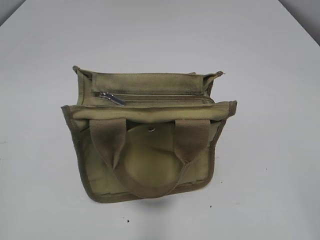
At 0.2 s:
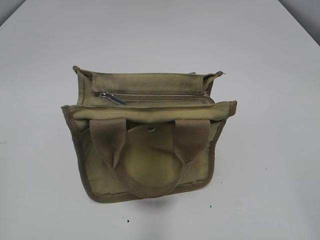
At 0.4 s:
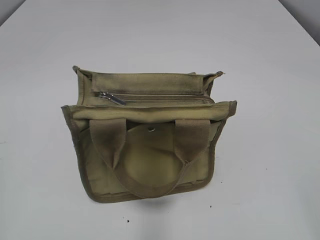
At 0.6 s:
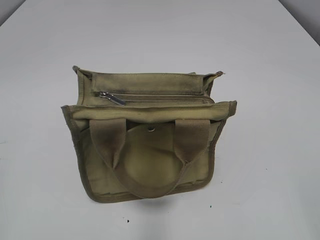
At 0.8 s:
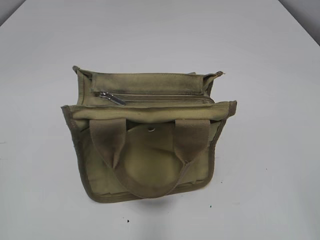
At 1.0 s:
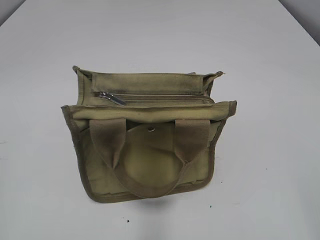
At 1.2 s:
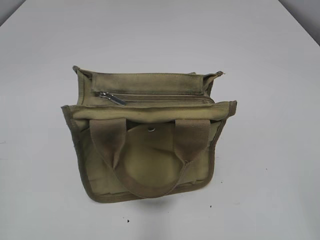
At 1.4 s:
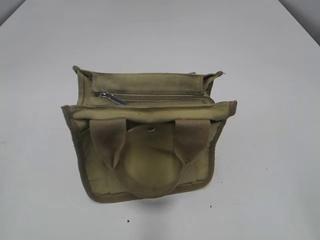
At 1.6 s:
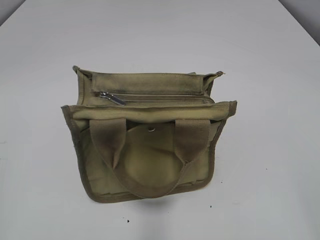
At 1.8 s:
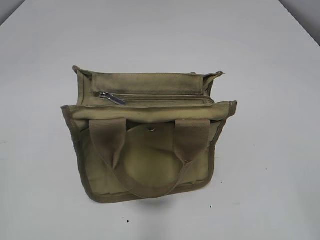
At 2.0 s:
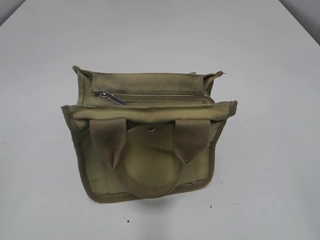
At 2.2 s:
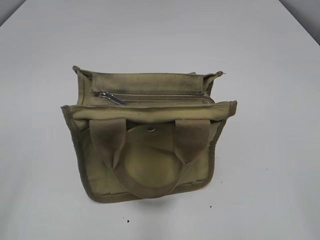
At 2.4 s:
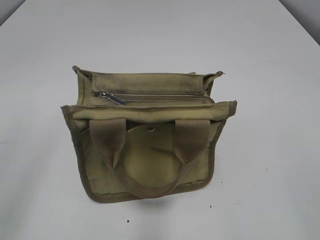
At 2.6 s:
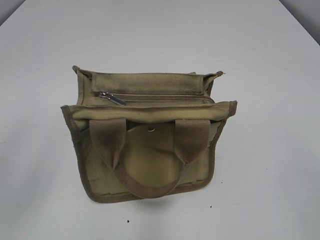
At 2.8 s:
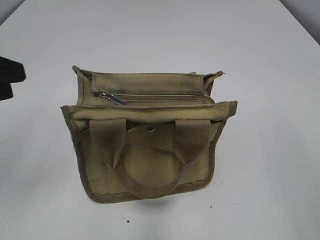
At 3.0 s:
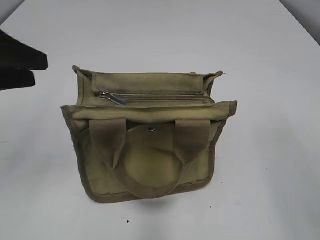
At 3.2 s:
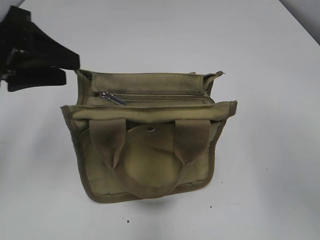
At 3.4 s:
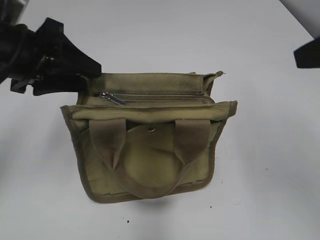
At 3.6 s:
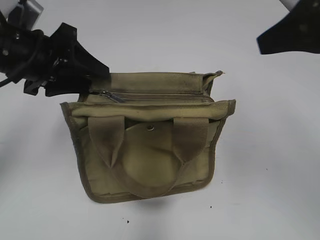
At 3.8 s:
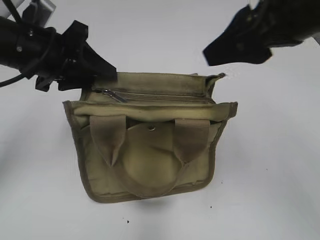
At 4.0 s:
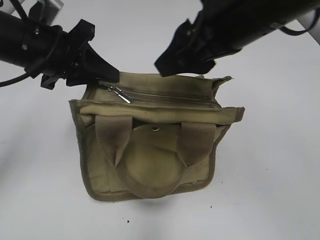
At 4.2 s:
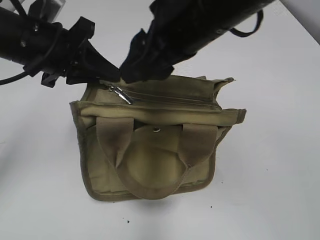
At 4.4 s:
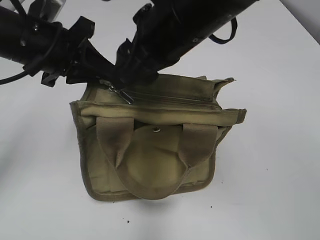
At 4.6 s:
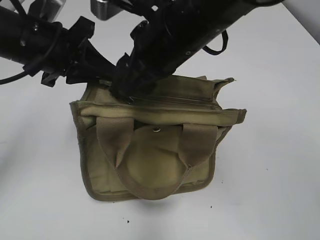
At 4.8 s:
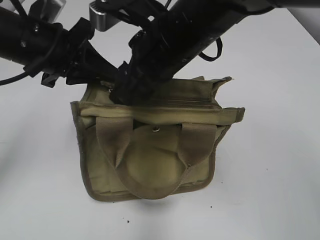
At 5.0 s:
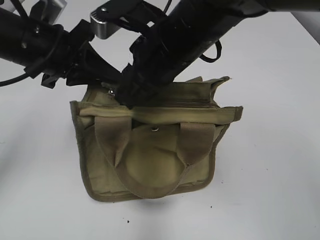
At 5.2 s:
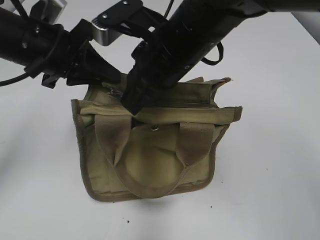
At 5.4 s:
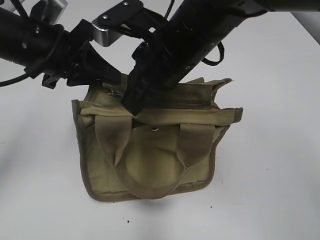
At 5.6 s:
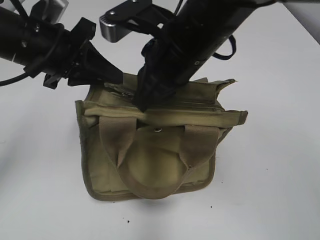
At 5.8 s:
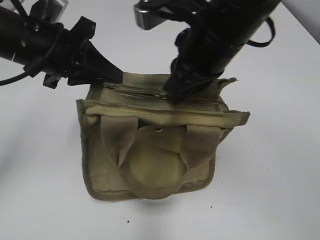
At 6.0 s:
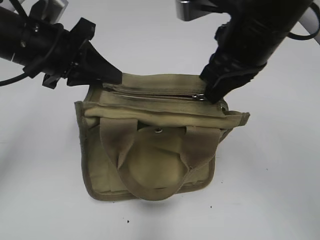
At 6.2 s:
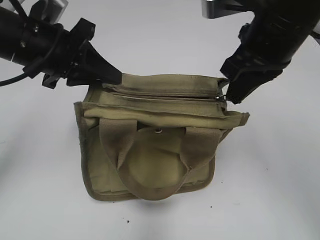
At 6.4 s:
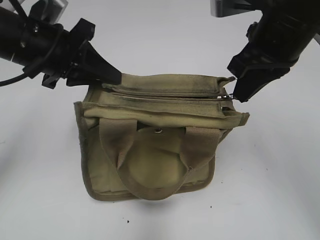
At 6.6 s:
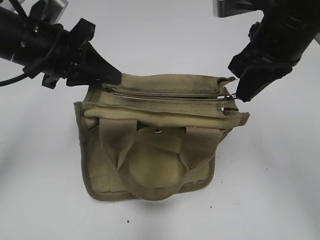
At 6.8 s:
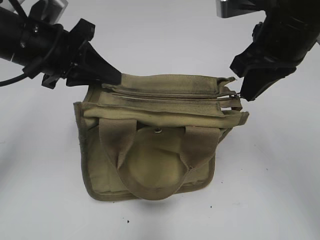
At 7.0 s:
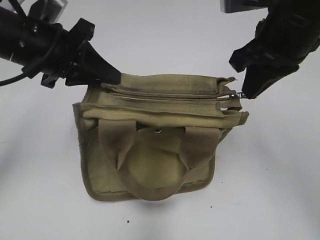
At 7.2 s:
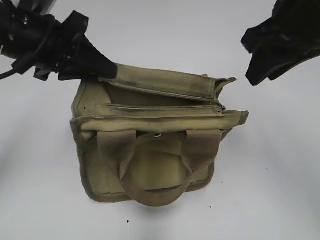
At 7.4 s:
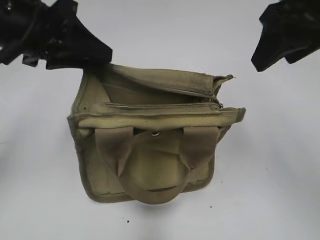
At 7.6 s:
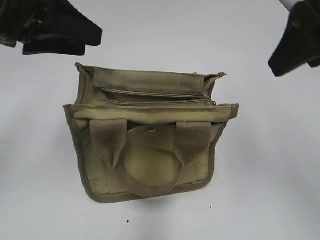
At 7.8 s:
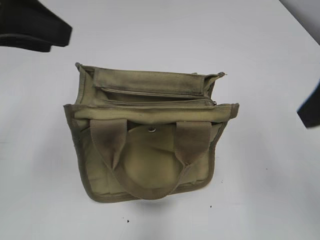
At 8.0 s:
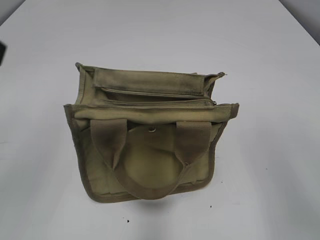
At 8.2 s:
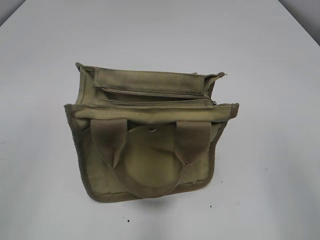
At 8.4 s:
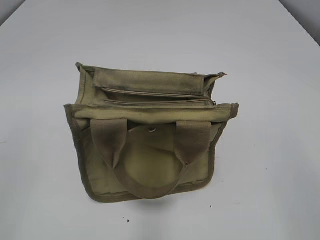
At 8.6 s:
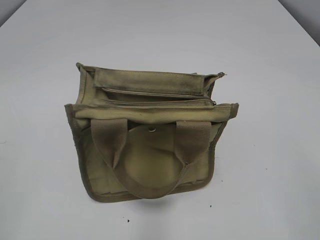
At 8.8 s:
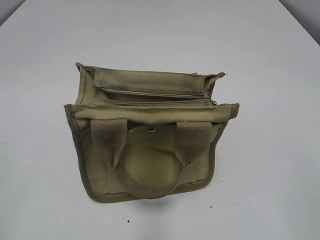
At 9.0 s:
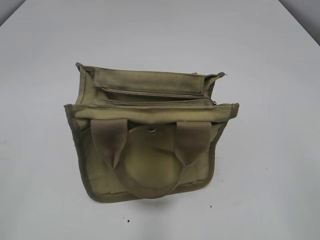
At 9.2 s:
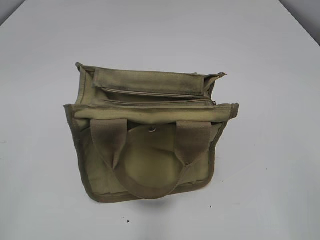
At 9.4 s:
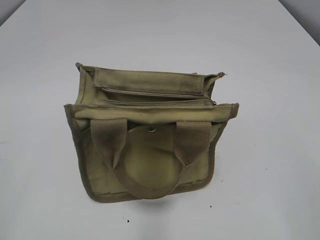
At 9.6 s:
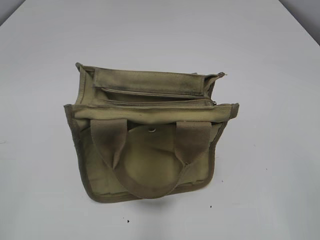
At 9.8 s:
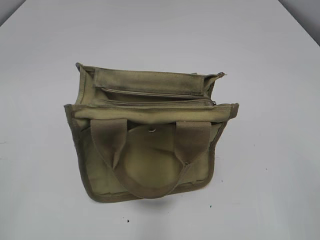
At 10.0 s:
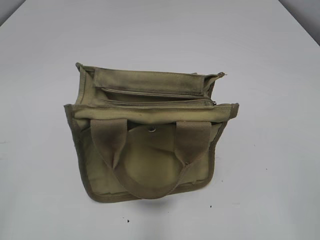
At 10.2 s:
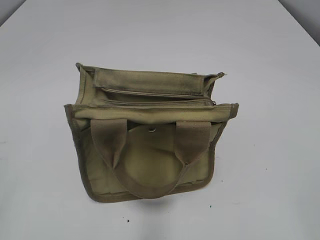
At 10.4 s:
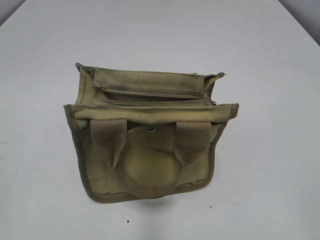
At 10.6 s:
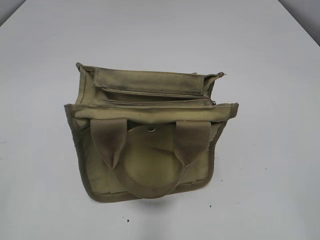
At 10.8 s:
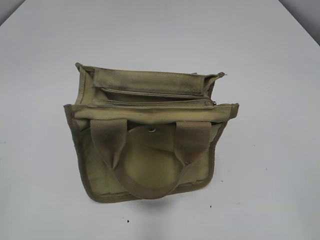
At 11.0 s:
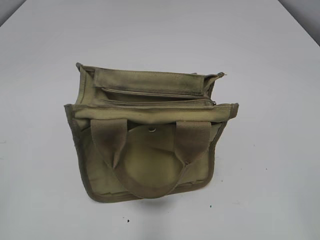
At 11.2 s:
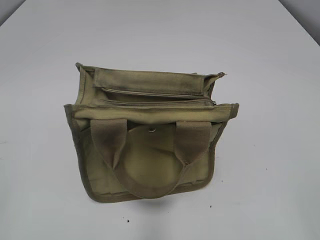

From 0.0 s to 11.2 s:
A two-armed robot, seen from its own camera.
Step, from 0.0 s to 7.0 s: Pull open the zipper with your right hand.
From 1.6 s to 3.2 s: The left gripper goes roughly 25 cm forward, and opens. The right gripper travels forward and upward by roughly 15 cm.
From 3.2 s to 4.8 s: The right gripper moves to the left and forward, some 25 cm. Meanwhile the left gripper goes roughly 10 cm to the right and forward, and closes.
From 4.8 s to 6.4 s: The right gripper goes approximately 15 cm to the right, and closes its fingers.
From 6.4 s to 8.0 s: The right gripper shifts approximately 20 cm backward and to the right, and opens up. The left gripper goes some 20 cm backward, upward and to the left, and opens up.
From 8.0 s to 9.6 s: The left gripper travels backward, downward and to the left by about 20 cm, while the right gripper heads backward, covering some 15 cm.

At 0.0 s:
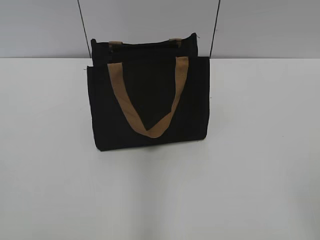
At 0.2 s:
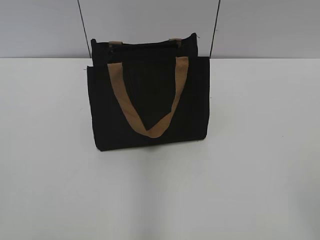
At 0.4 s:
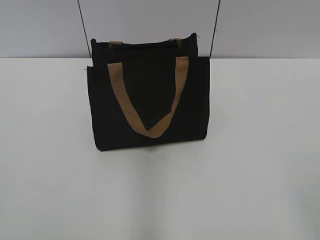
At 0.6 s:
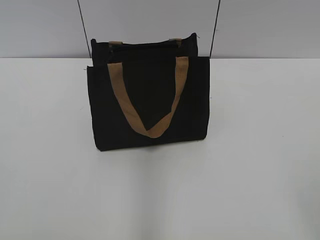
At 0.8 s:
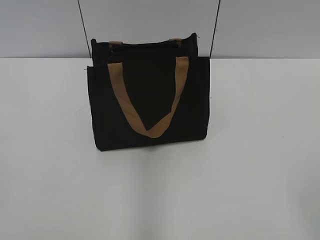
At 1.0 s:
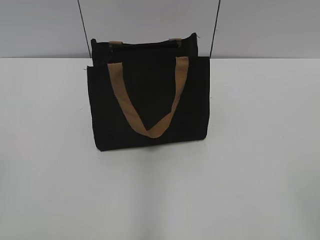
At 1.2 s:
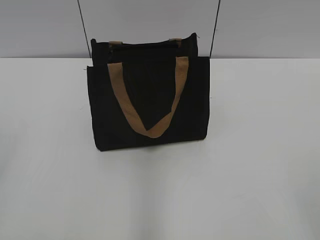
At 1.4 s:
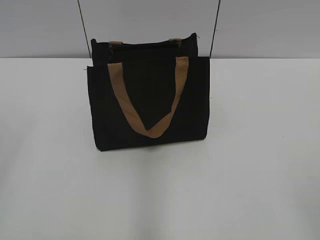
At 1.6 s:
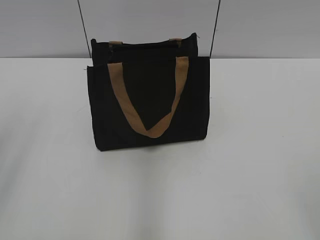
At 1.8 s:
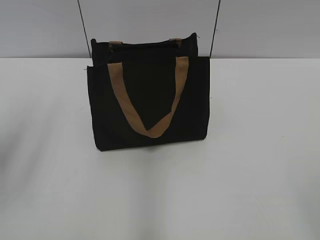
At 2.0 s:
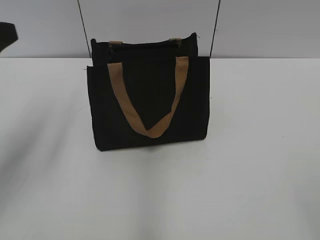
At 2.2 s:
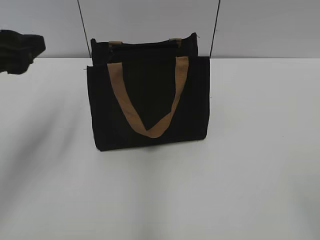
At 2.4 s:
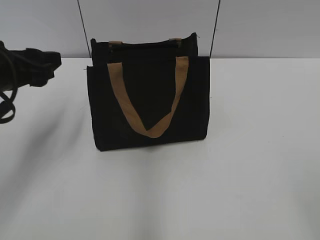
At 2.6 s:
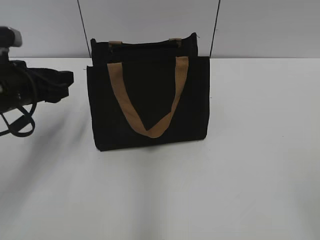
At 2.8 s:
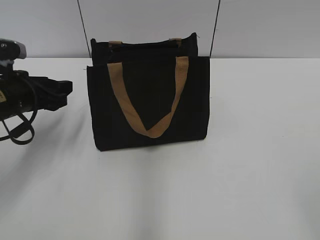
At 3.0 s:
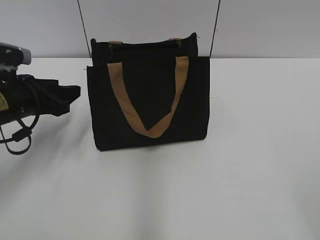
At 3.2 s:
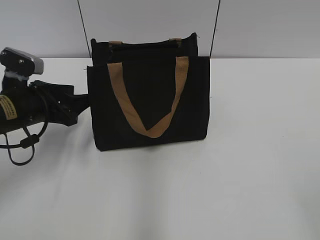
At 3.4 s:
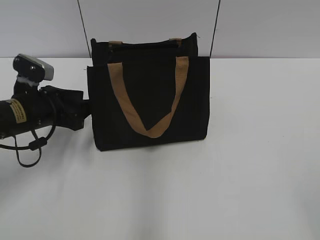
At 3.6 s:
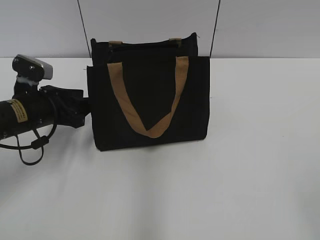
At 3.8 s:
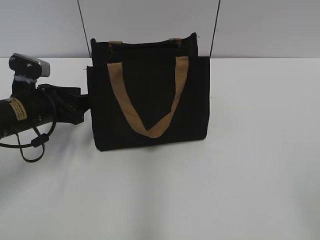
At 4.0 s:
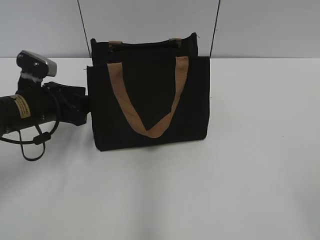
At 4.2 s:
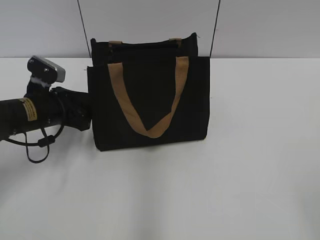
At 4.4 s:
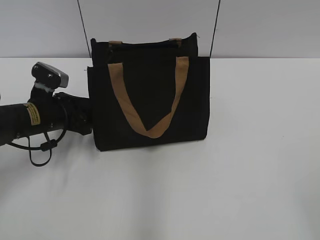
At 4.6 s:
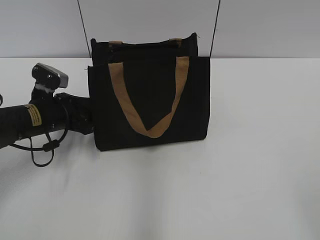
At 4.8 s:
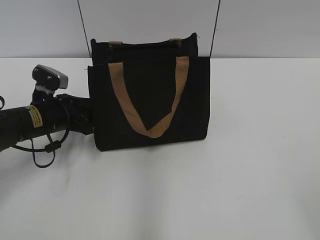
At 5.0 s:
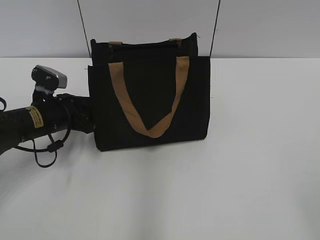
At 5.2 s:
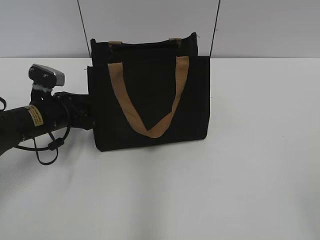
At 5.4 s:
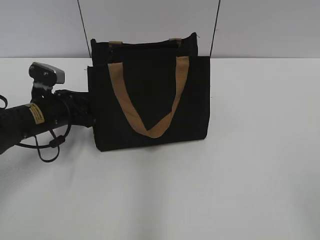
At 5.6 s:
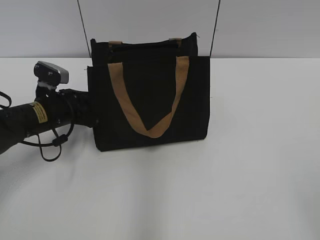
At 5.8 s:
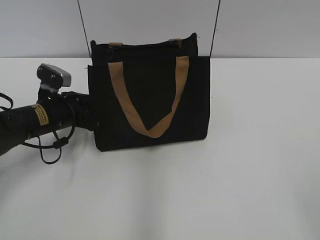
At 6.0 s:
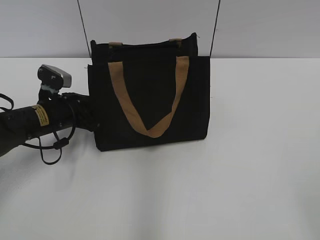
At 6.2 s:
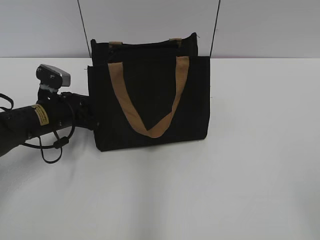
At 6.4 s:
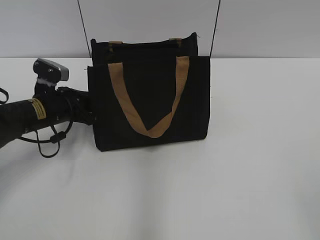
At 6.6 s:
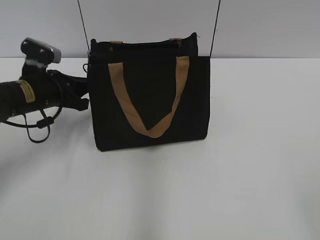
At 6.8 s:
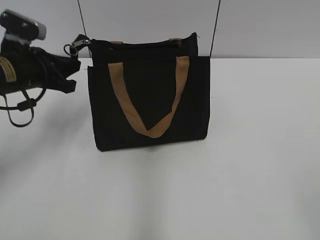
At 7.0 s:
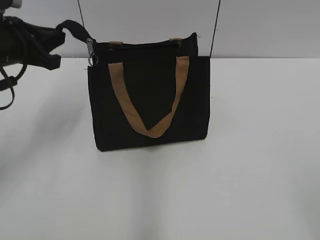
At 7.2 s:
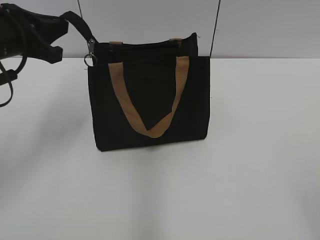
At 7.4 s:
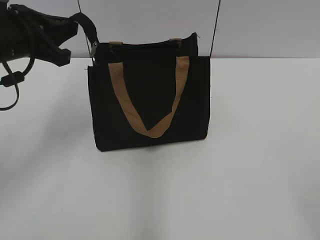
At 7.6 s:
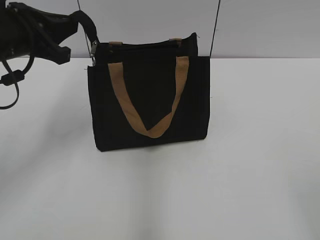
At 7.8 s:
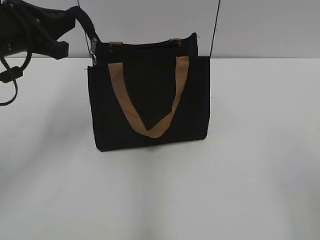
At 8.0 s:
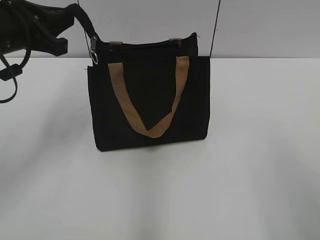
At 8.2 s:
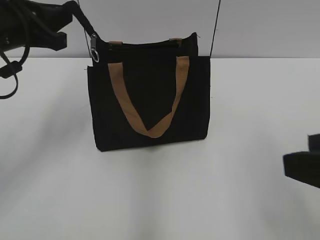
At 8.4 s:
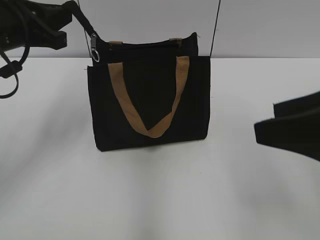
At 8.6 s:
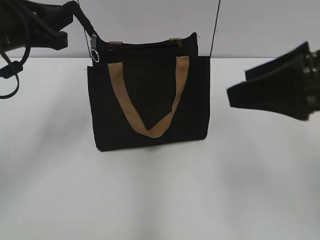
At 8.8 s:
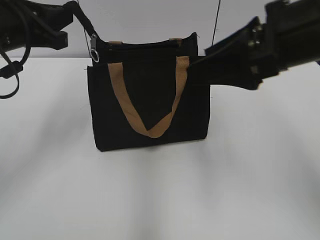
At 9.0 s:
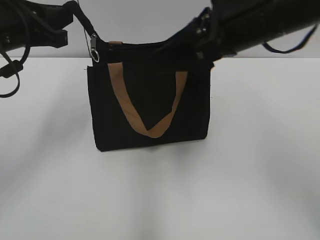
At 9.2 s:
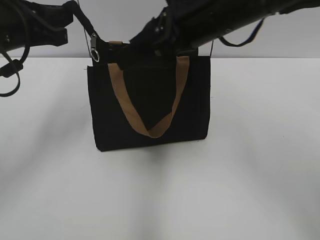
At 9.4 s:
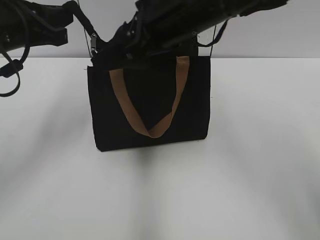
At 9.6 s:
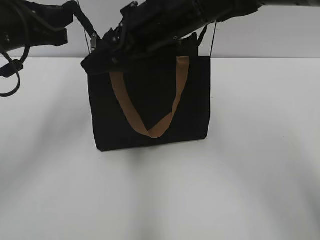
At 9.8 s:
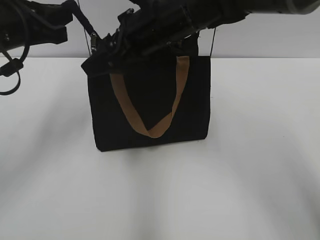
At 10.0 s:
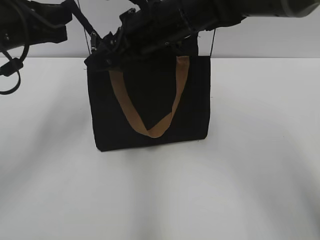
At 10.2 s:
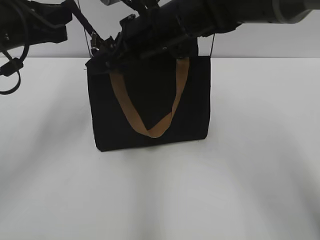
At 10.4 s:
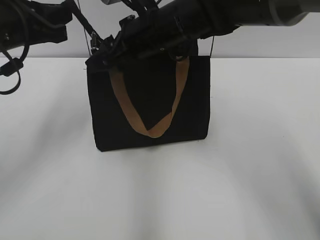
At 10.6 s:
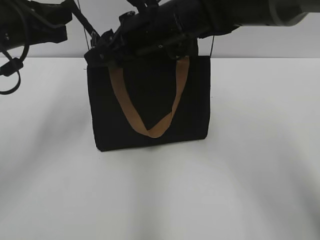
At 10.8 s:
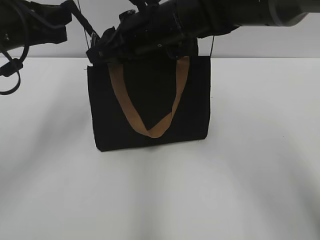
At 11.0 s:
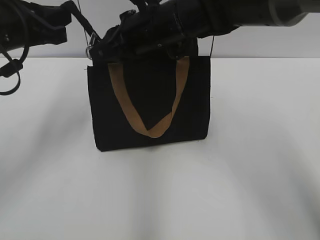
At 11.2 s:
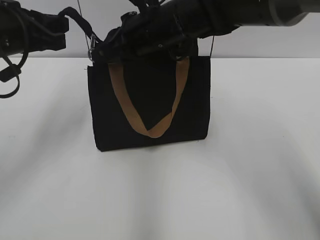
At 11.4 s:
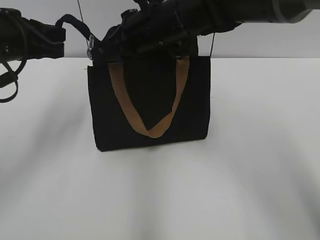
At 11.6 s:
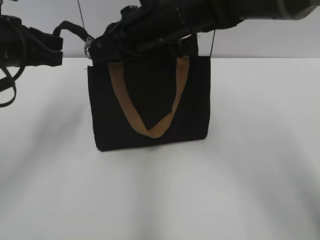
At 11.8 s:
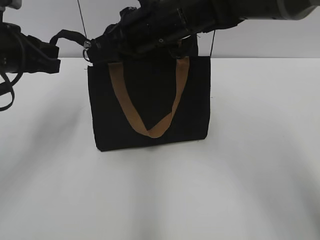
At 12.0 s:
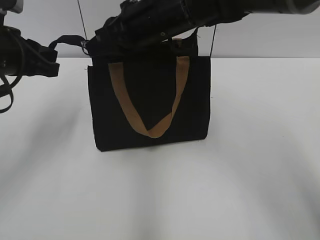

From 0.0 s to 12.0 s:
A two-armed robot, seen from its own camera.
From 1.6 s to 3.0 s: The left gripper is displaced forward and downward by about 25 cm.
From 3.0 s to 4.4 s: The left gripper heads downward, covering roughly 5 cm.
From 4.4 s to 6.0 s: The grippers make only small movements.
From 6.0 s to 7.6 s: The left gripper is displaced upward by about 20 cm, and closes up.
From 7.6 s to 9.0 s: The right gripper goes some 30 cm forward and to the left.
From 9.0 s to 10.4 s: The right gripper goes roughly 15 cm to the left, forward and downward.
From 10.4 s to 12.0 s: The right gripper closes.
